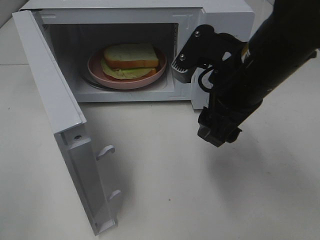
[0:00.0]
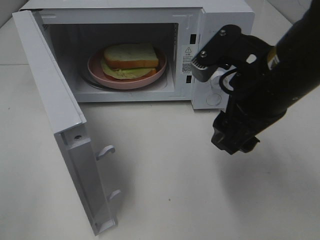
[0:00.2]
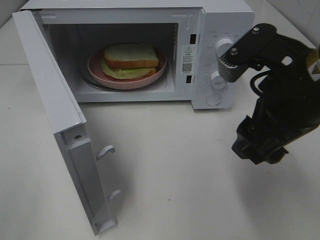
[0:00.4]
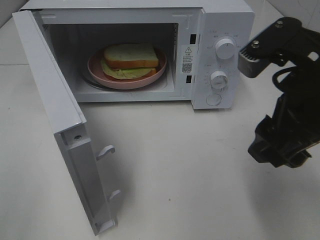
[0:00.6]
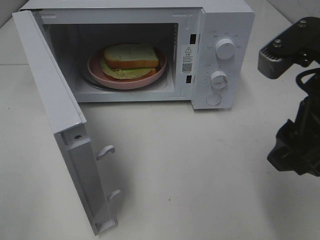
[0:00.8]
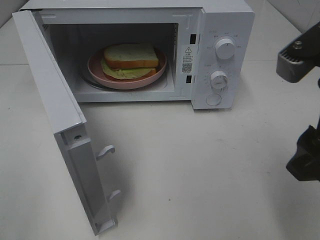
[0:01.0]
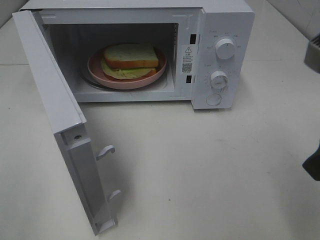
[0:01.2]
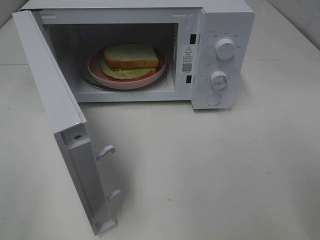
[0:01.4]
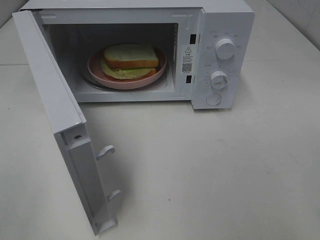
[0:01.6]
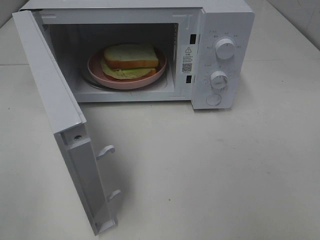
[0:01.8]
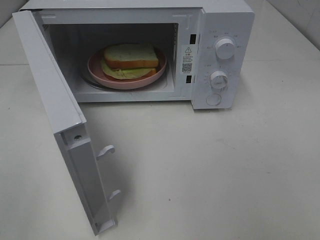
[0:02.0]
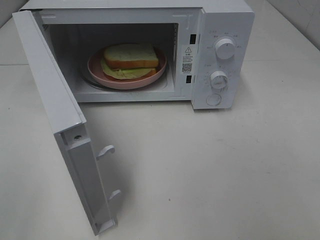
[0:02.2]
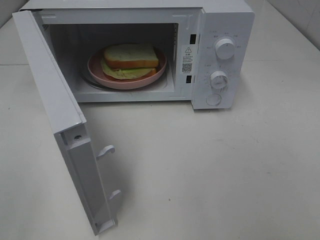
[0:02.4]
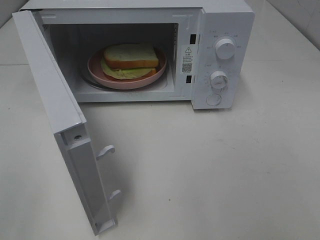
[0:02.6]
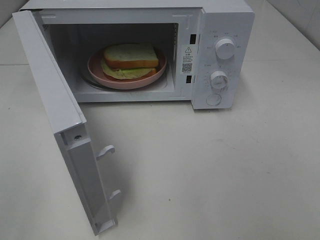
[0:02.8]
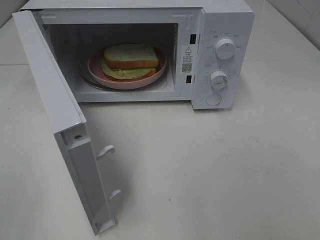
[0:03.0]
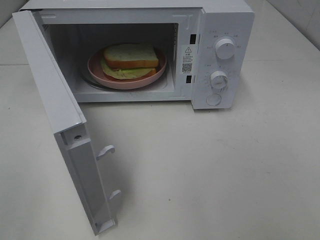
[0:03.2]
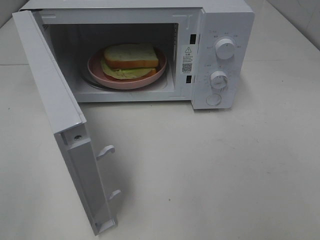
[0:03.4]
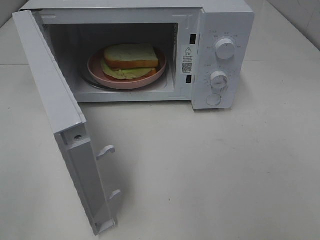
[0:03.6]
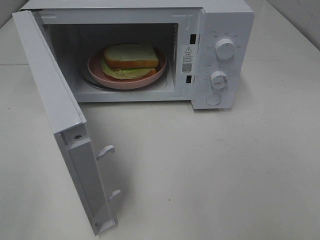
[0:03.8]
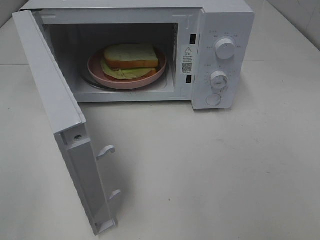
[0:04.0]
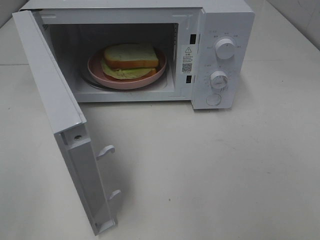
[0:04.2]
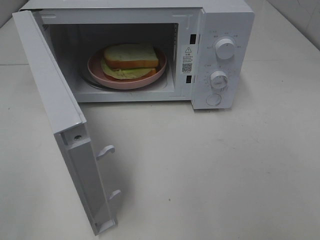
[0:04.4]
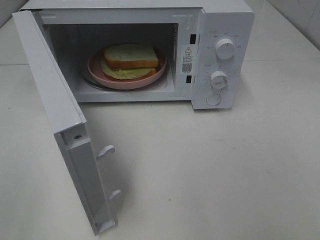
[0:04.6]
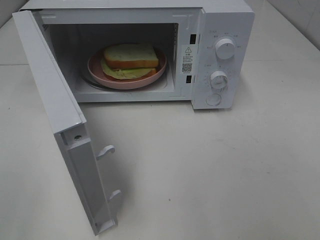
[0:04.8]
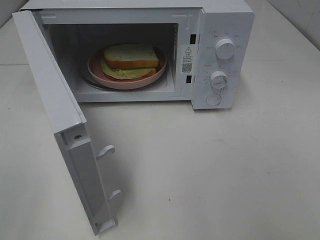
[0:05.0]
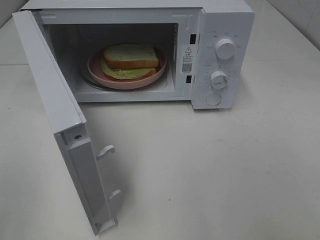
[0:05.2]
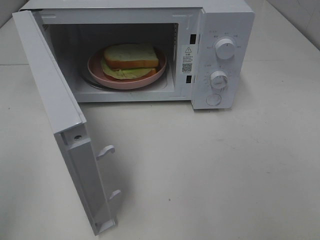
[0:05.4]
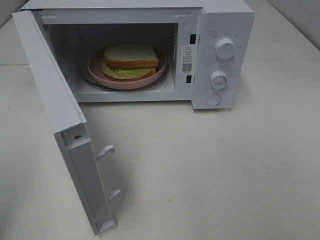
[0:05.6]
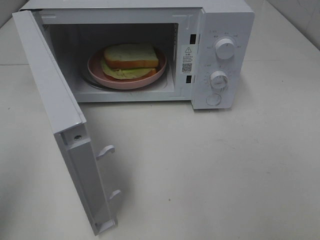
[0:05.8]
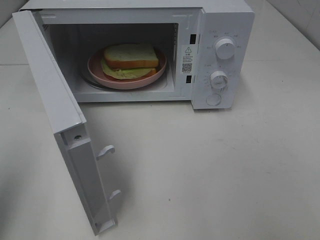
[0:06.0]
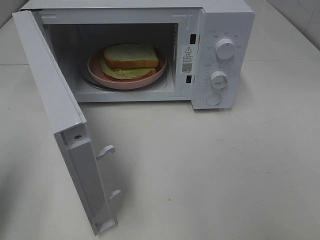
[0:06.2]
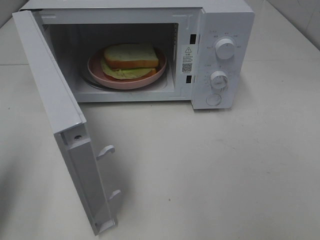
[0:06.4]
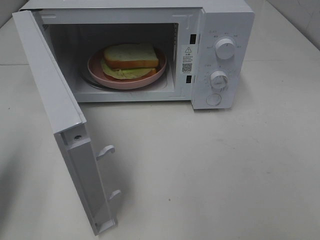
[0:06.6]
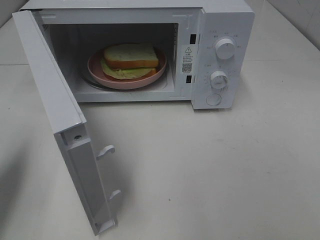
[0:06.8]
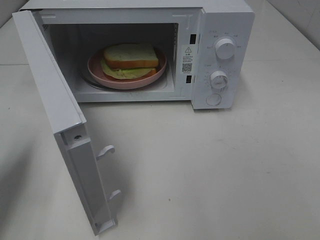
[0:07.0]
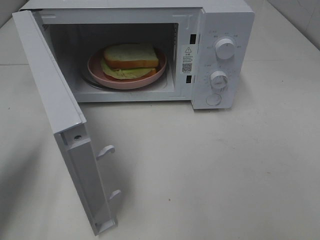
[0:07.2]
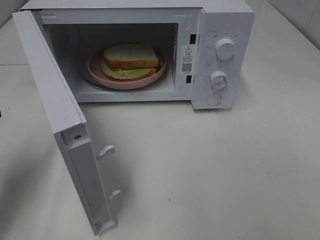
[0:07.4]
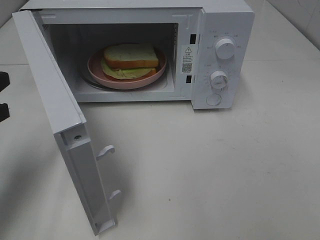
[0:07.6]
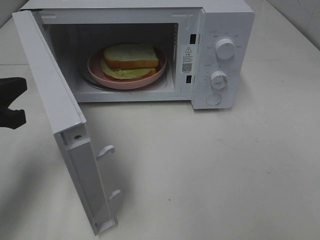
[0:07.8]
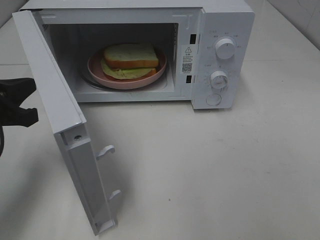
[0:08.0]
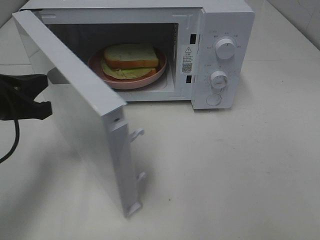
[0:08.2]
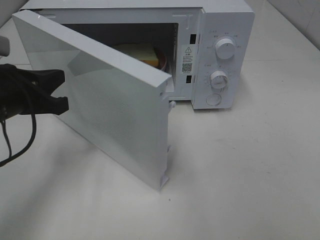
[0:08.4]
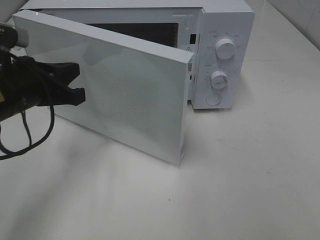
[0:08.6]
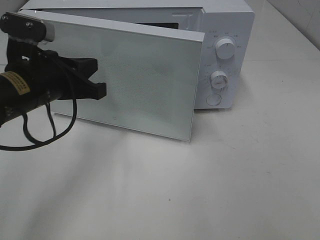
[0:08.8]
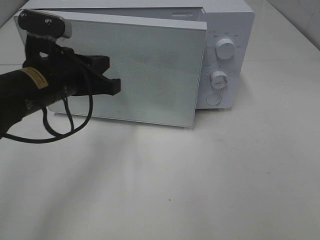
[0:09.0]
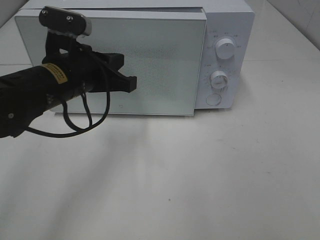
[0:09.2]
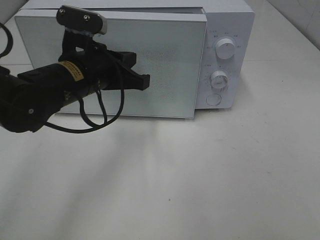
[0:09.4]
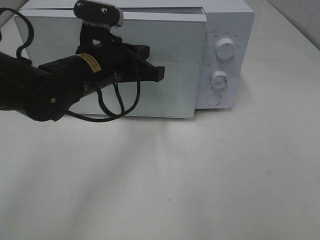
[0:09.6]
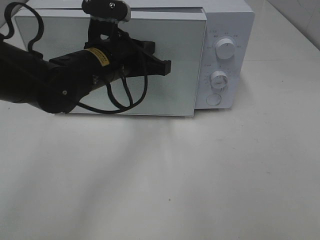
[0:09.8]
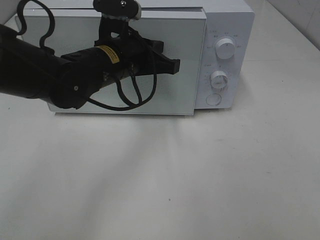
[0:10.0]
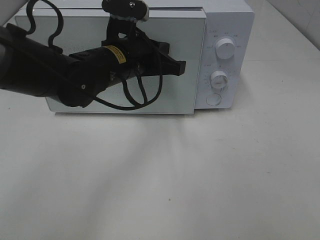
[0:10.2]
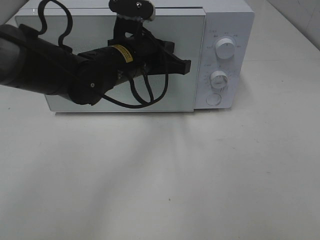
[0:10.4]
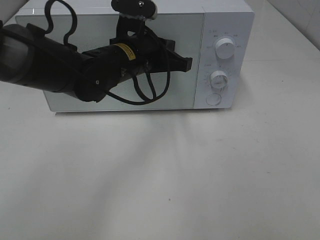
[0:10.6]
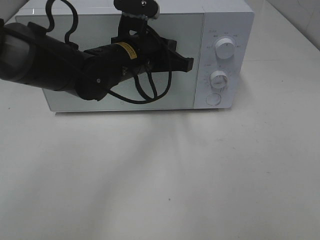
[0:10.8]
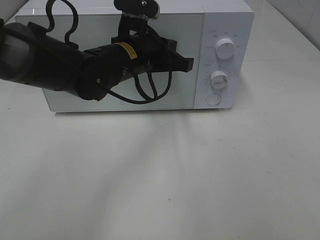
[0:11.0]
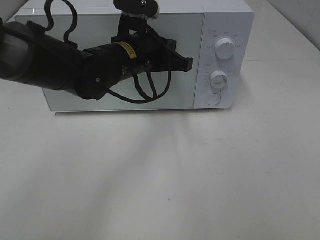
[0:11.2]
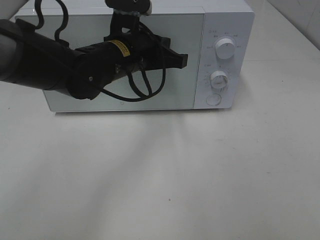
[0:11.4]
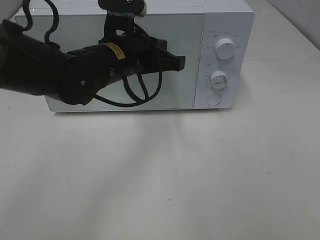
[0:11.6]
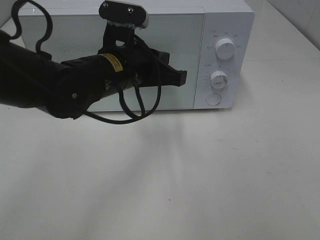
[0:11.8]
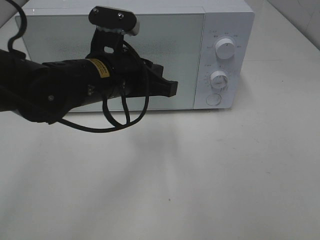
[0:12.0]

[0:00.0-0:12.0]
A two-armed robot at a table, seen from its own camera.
Task of the whole recording: Heat Sandwich.
Step, 0:00.0 to 0:10.6: Left hand: close the microwave door.
0:00.0 to 0:01.6: The right gripper travels to the right, backward and upward by roughly 20 cm.
0:03.0 to 0:04.4: Both grippers stay about where they are.
0:04.4 to 0:06.0: The left gripper moves forward, approximately 10 cm, and closes up.
0:06.0 to 0:07.6: The left gripper shifts approximately 15 cm forward and downward.
0:07.6 to 0:09.0: The left gripper travels to the right and forward by roughly 15 cm.
0:09.0 to 0:10.4: The left gripper heads to the right and forward, covering roughly 10 cm.
0:10.4 to 0:12.0: The left gripper travels backward by approximately 5 cm.

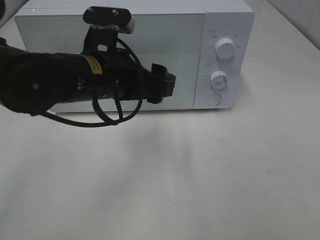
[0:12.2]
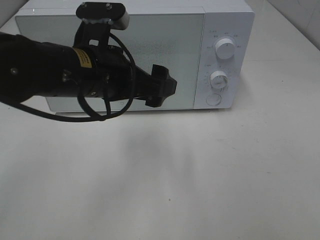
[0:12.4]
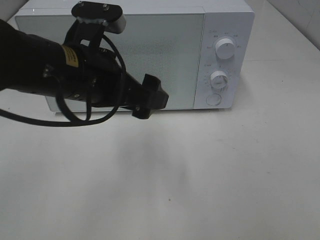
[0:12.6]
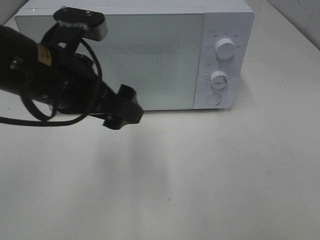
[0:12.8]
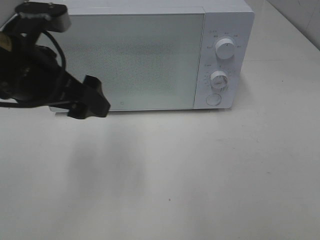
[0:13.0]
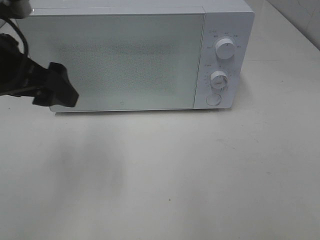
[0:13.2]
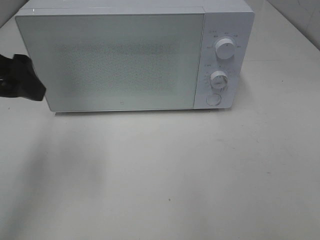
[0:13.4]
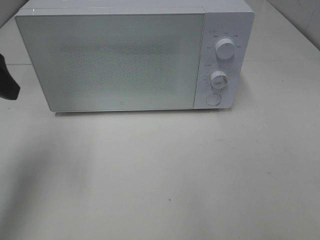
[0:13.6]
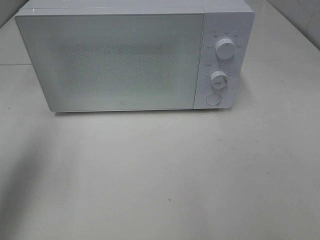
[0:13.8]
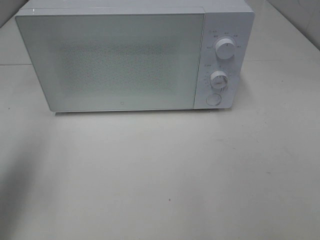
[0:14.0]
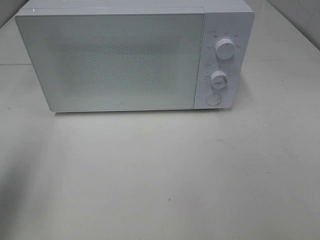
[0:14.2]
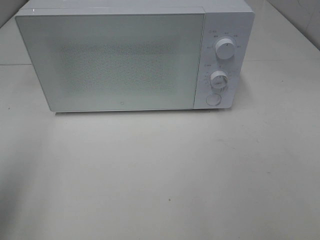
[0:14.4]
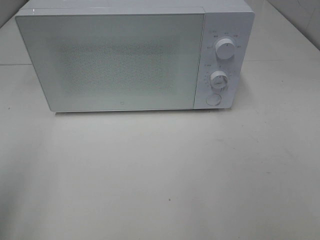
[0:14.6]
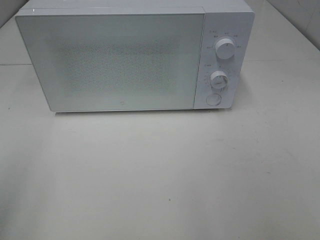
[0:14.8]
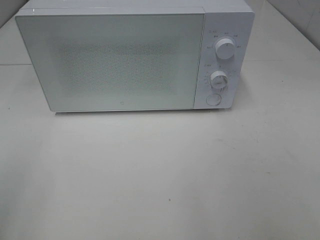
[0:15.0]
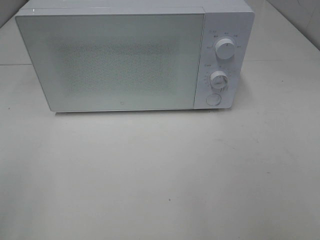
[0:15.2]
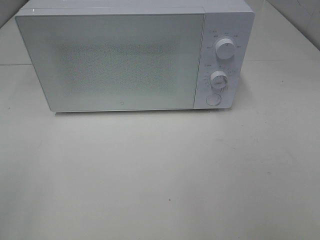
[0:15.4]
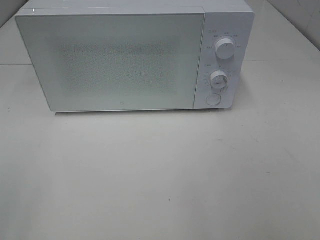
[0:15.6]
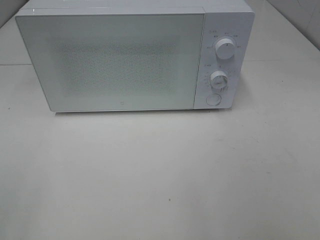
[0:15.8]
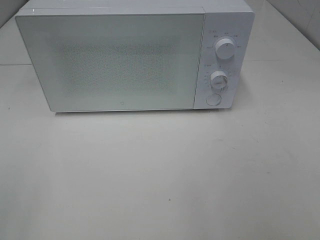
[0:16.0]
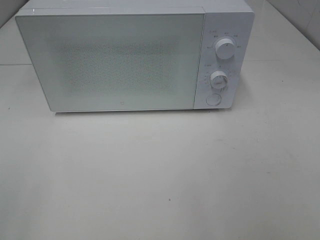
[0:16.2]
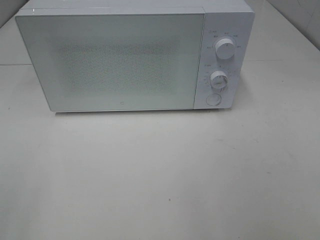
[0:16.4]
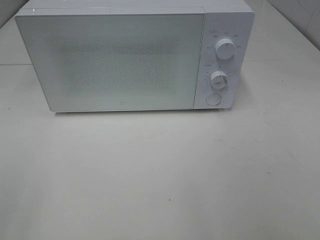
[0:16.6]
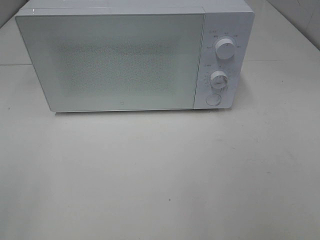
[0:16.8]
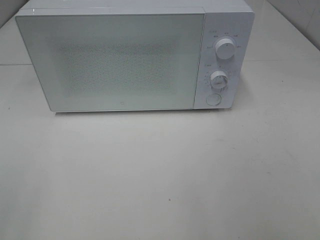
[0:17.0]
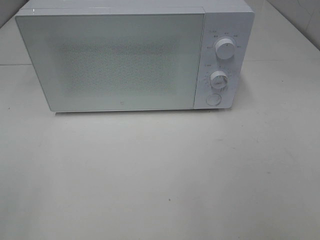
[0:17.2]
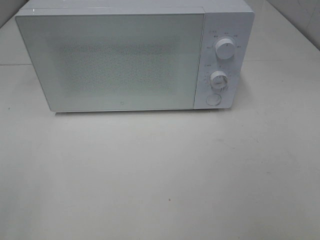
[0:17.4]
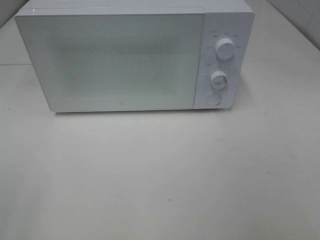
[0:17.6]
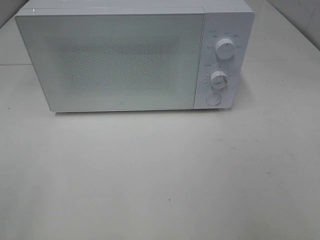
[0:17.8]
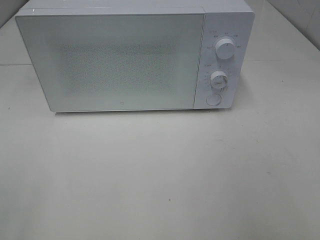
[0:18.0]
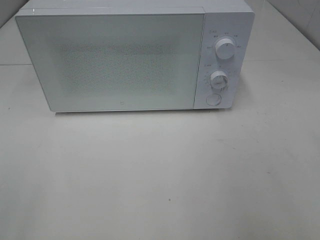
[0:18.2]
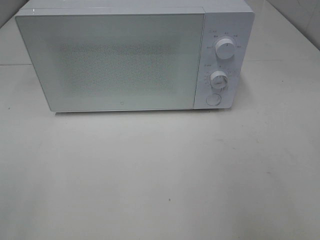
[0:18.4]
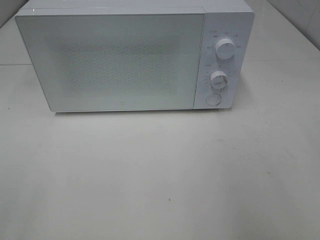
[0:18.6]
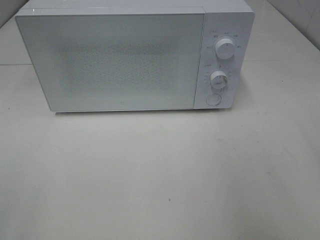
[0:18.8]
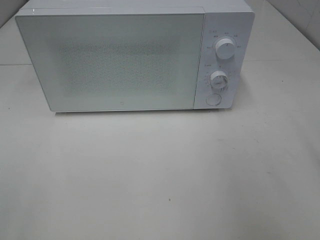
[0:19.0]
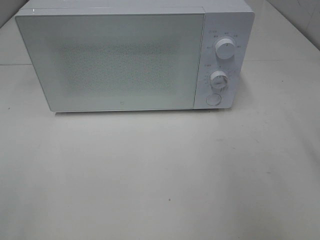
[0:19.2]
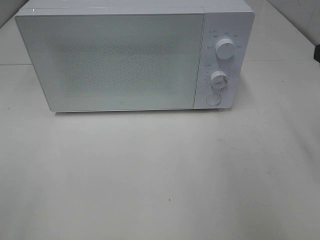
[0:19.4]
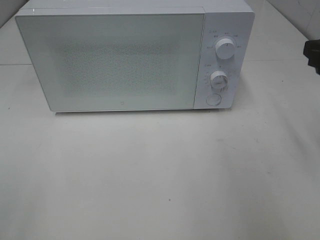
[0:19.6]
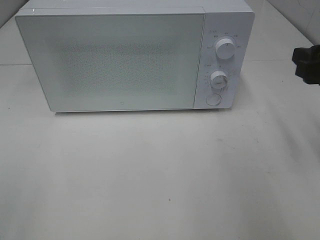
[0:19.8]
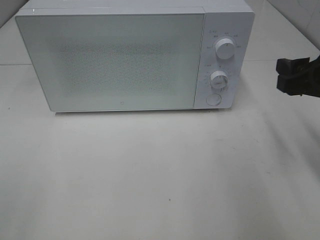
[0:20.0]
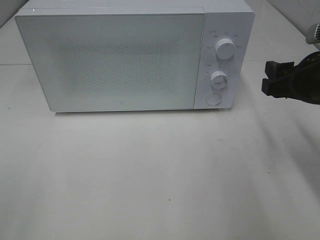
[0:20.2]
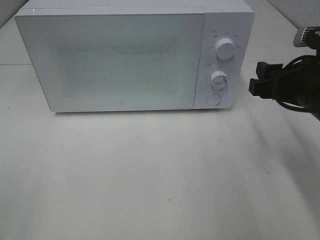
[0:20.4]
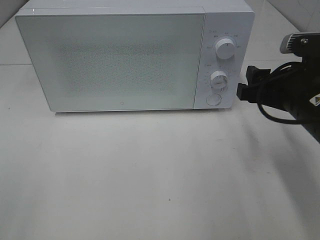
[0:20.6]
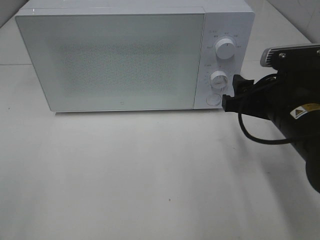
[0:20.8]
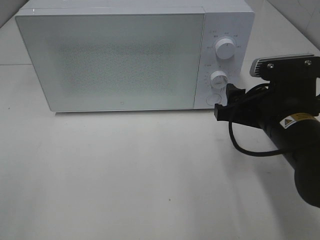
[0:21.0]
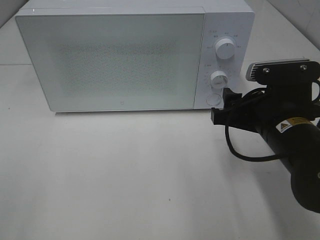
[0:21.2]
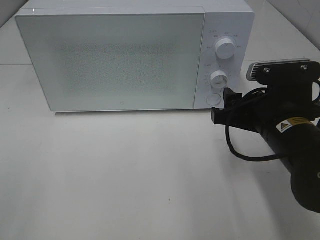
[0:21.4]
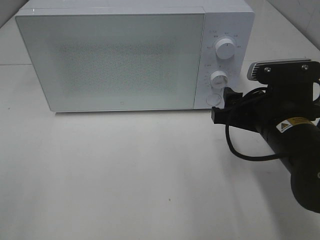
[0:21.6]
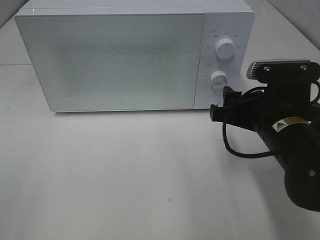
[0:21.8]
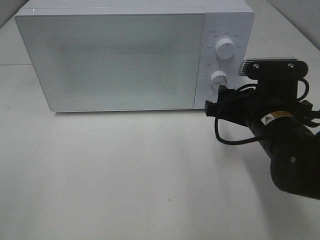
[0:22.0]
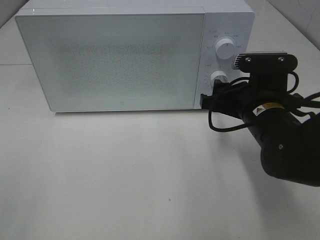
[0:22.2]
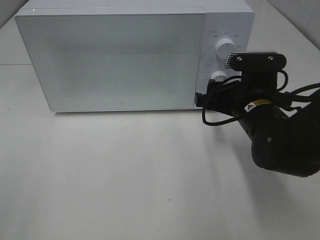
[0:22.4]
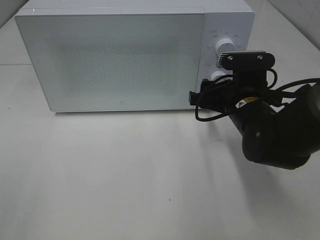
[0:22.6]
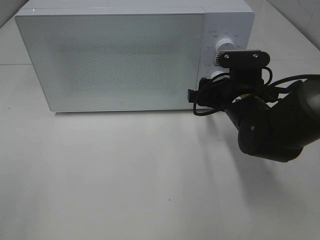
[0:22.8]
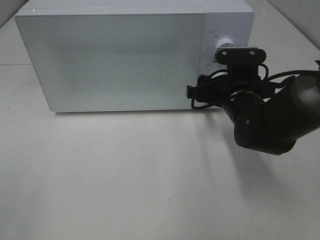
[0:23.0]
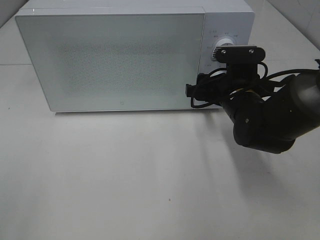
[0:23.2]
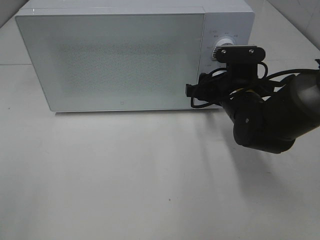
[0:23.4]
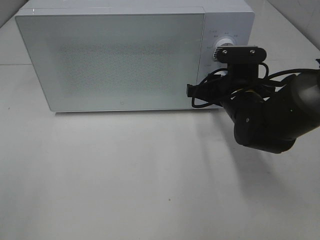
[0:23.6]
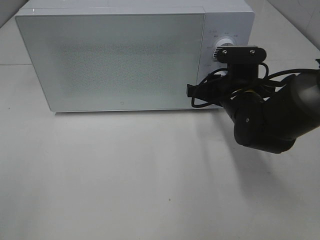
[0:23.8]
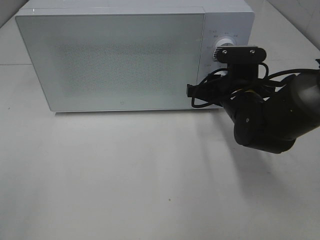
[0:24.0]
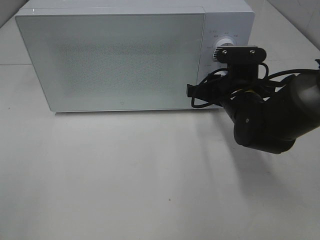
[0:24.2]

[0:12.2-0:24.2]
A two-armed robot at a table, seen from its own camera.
Task of the whole recording: Heat Sandwich.
0:12.2 to 0:13.8: The left gripper heads to the left, covering about 20 cm.
0:13.8 to 0:15.2: The left gripper travels backward by approximately 20 cm.
0:18.2 to 0:19.8: The right gripper moves forward and downward, some 15 cm.
0:19.8 to 0:21.2: The right gripper is displaced to the left and downward by some 15 cm.
0:21.2 to 0:22.6: The right gripper goes roughly 5 cm forward.
0:22.6 to 0:24.2: The right gripper closes its fingers.
